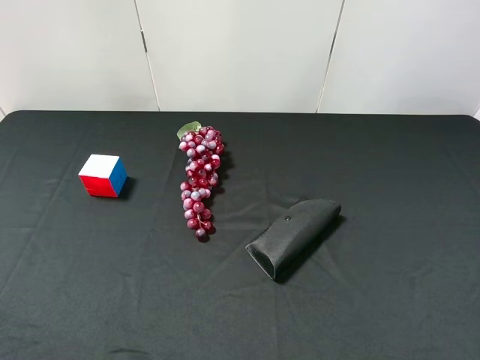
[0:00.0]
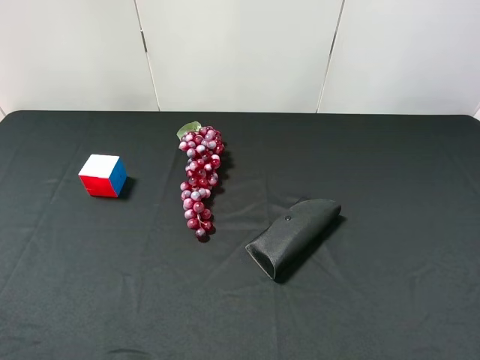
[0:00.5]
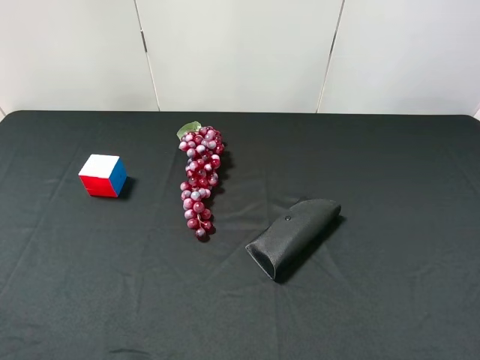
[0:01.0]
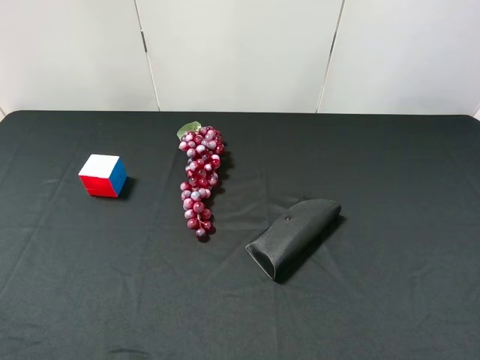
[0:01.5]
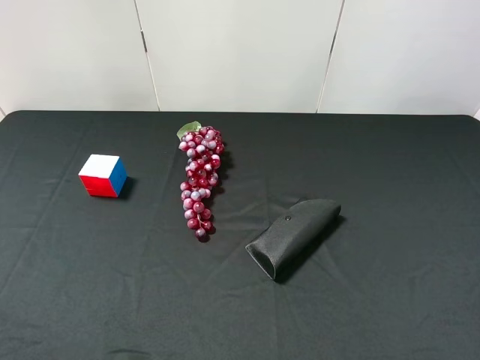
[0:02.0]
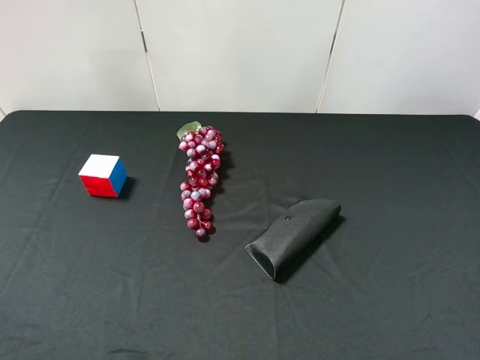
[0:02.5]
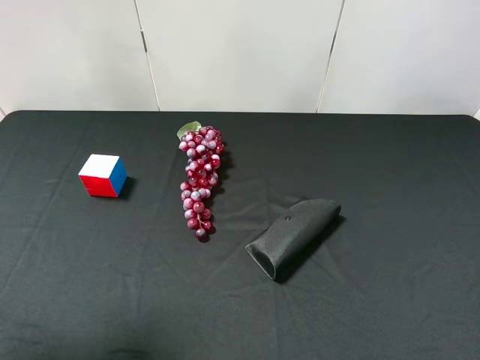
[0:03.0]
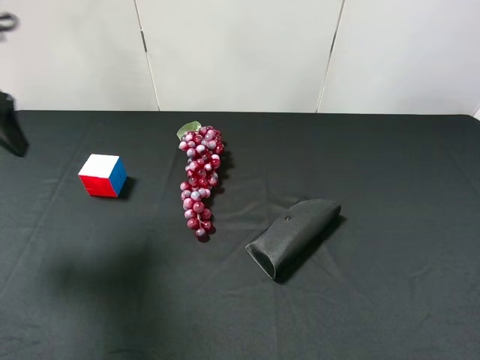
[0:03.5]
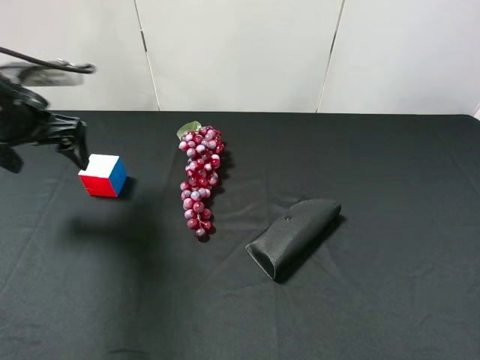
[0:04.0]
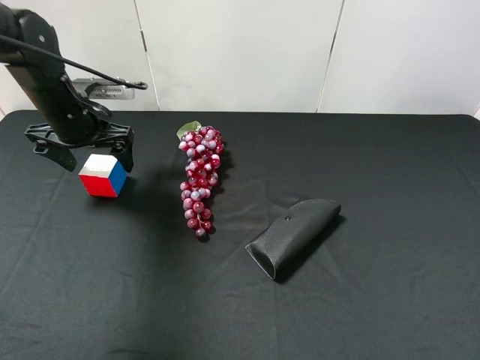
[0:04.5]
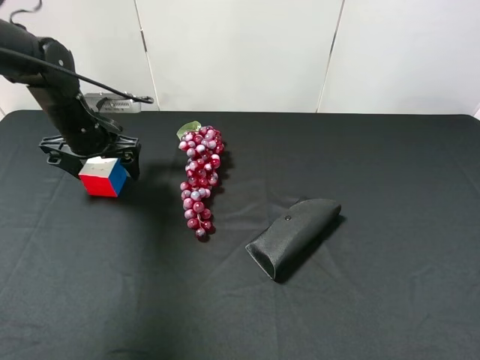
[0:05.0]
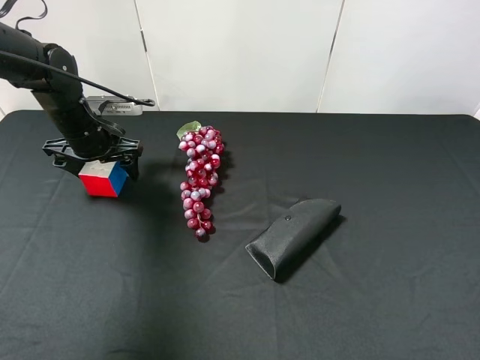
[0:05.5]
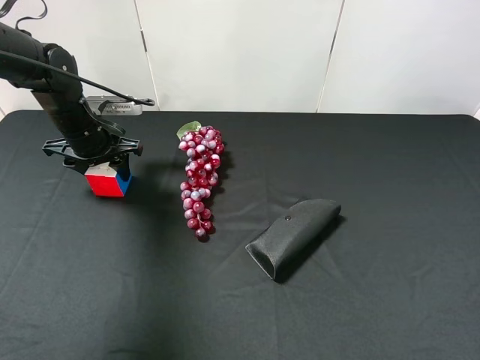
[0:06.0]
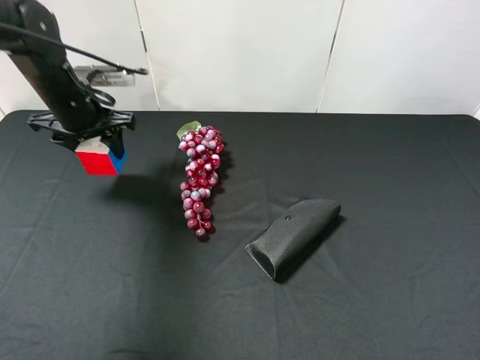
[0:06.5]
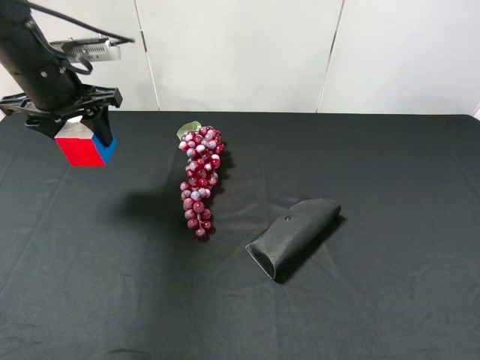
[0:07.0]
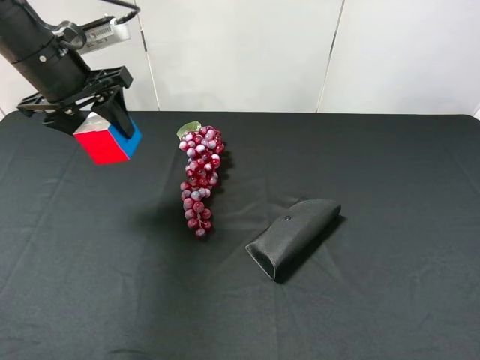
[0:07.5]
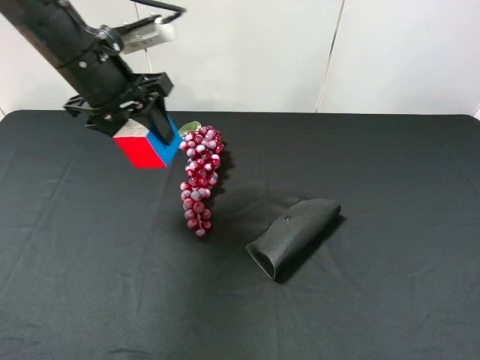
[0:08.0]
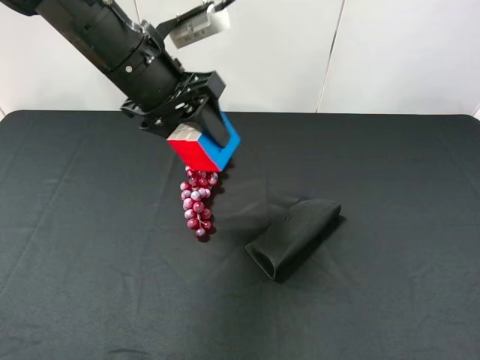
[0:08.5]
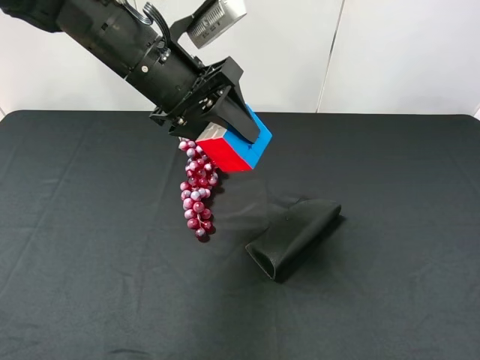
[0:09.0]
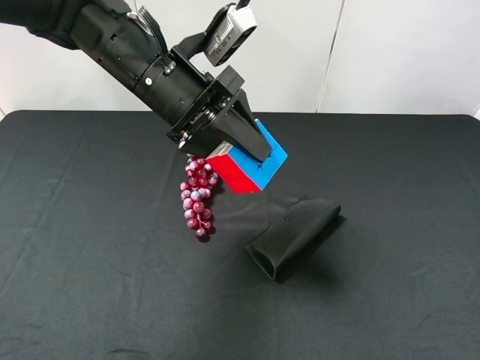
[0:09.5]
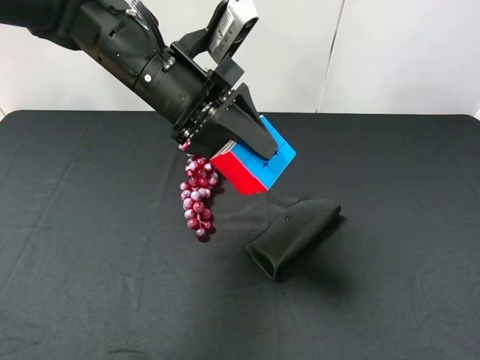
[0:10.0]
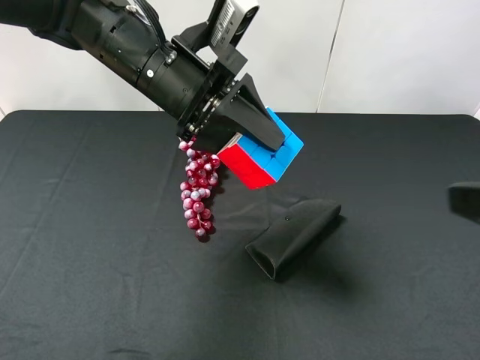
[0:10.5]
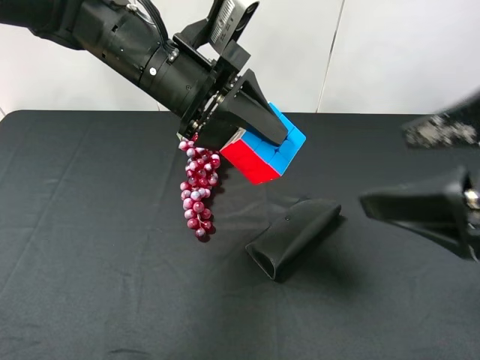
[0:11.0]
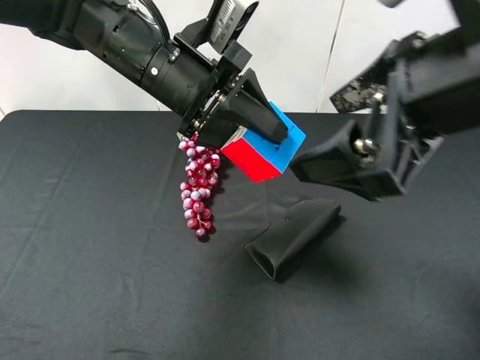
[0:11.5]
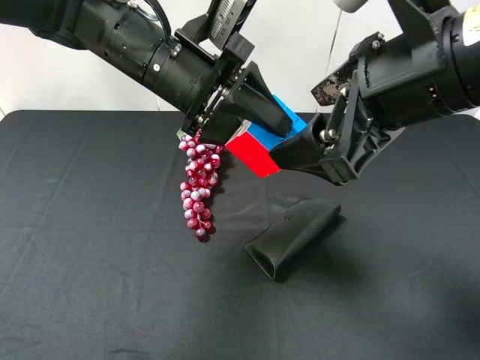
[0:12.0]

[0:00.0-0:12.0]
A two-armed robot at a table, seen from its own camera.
Task of the whole recording: use the left gripper to pick up the item and transfer it from the left gripper to the right gripper.
0:00.0 to 0:02.0: Neither gripper changes place.
0:02.0 to 0:04.0: The left gripper goes roughly 30 cm forward.
0:04.0 to 0:06.0: The left gripper shifts about 10 cm downward and forward, and closes up.
0:06.0 to 0:08.0: The left gripper shifts roughly 15 cm upward, to the right and backward.
0:08.0 to 0:10.0: The left gripper is displaced to the right by roughly 10 cm.
0:10.0 to 0:12.0: The right gripper moves forward and to the left, approximately 20 cm.

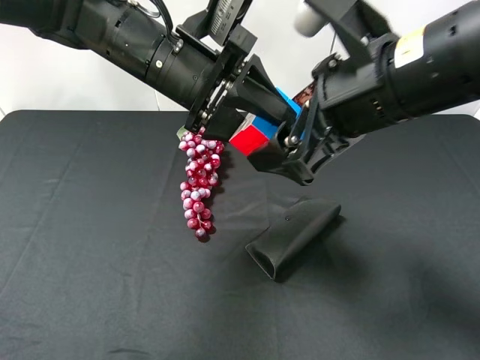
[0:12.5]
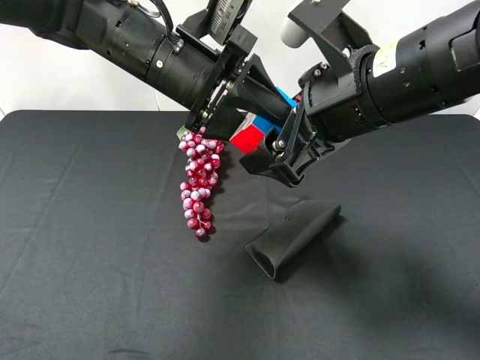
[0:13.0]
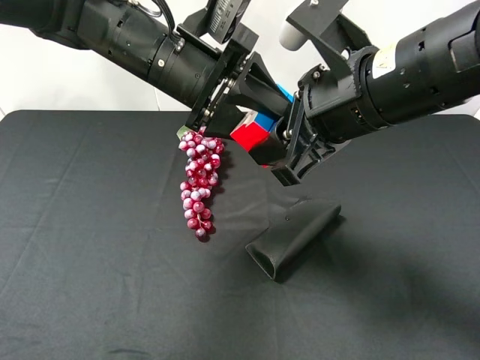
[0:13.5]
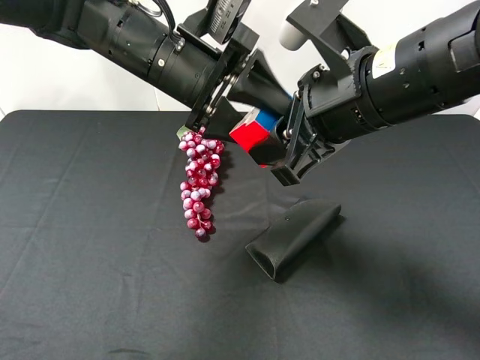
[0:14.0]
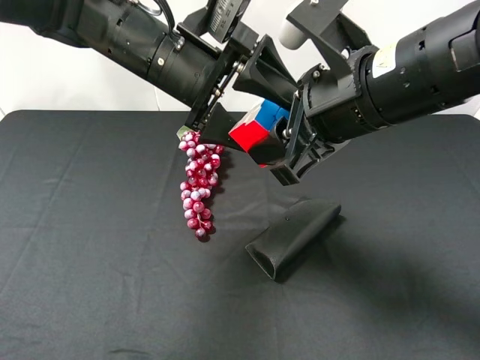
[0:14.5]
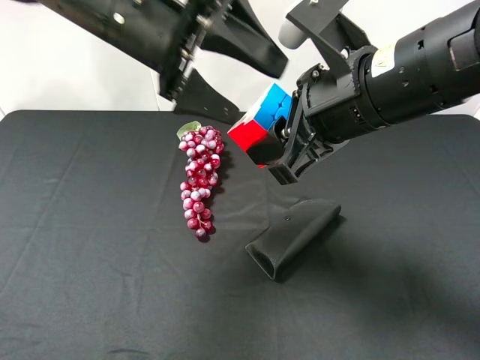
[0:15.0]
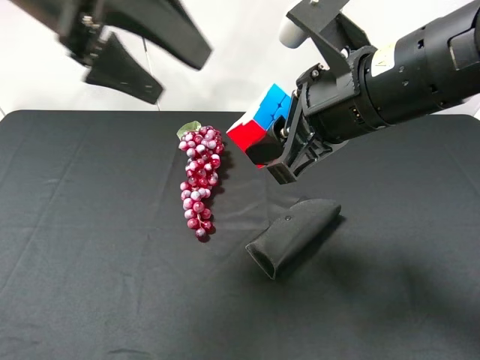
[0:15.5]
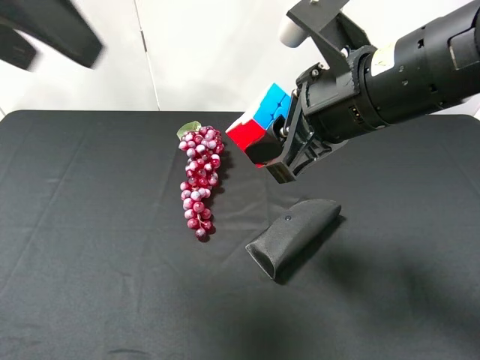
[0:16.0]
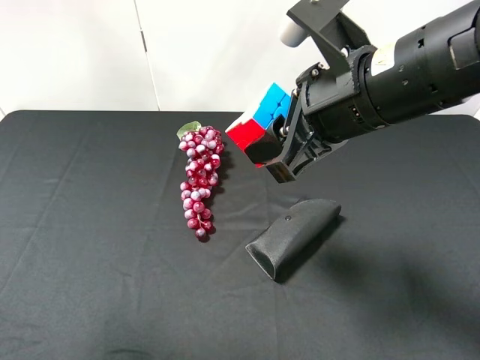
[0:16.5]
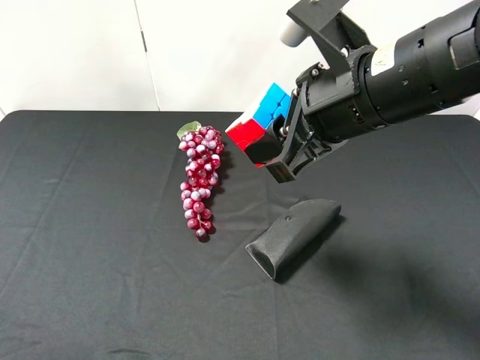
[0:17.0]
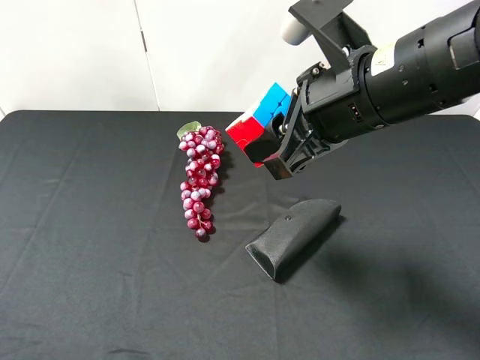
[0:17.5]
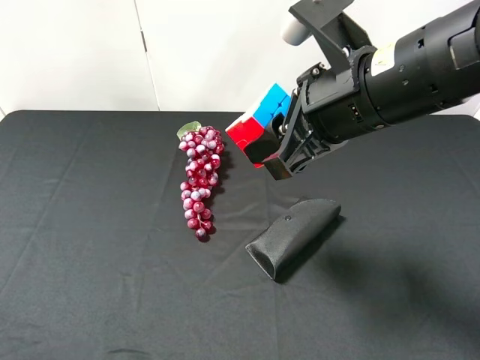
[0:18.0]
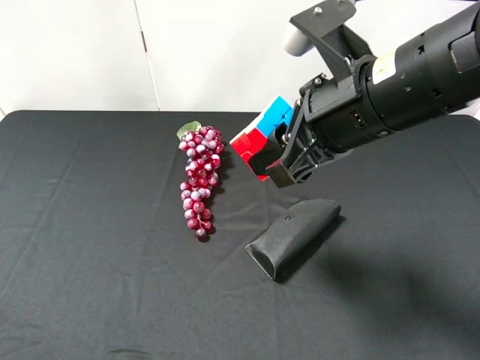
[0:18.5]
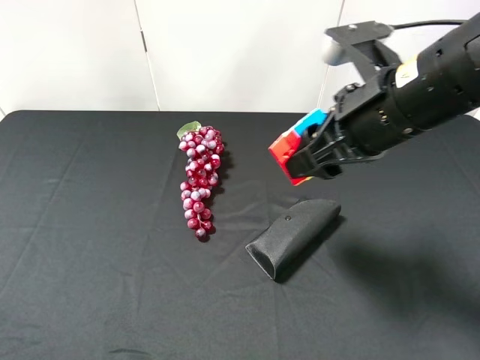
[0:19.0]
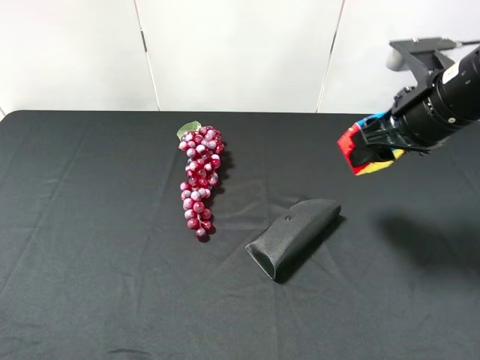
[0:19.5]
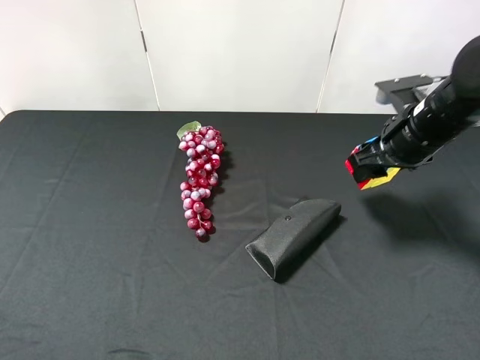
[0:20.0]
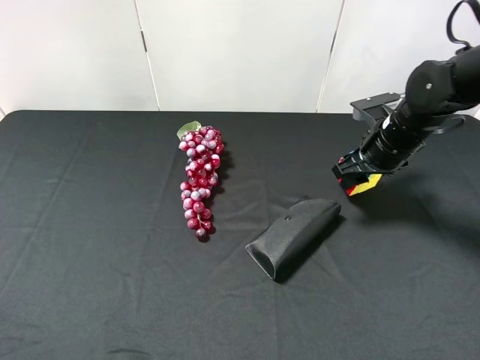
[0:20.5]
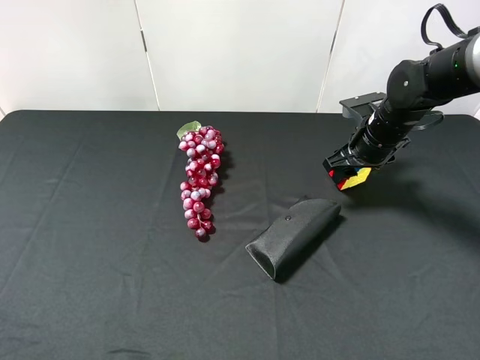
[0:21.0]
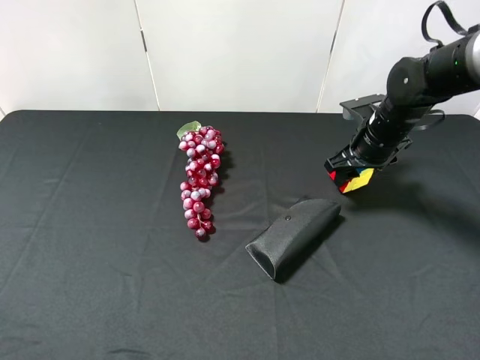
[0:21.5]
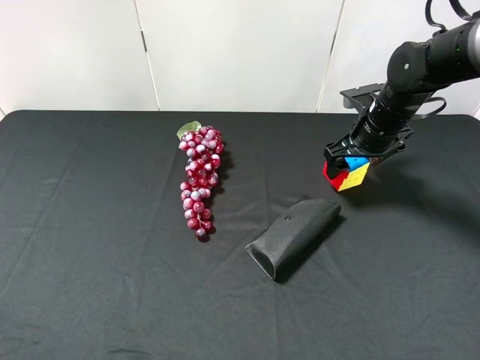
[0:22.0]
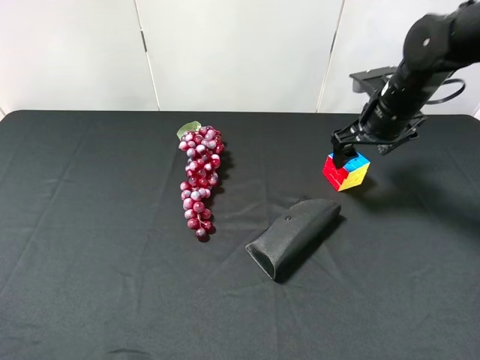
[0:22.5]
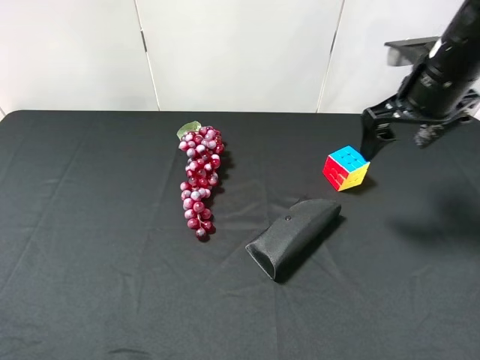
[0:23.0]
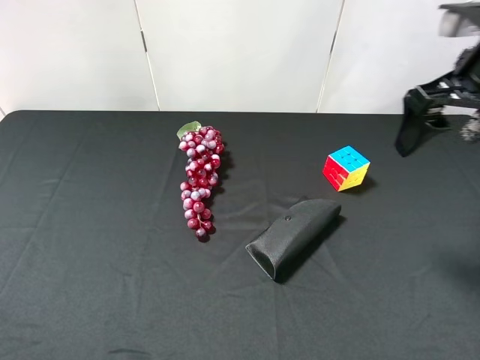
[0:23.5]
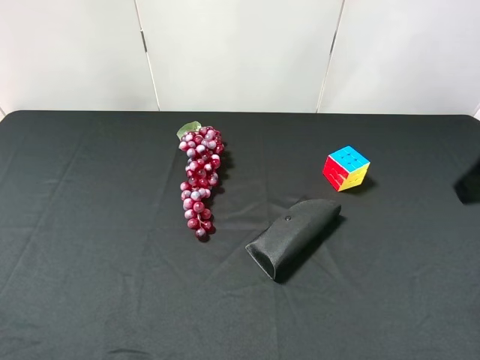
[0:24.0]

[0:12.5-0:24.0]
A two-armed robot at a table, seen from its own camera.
Task of the whole recording: use the left gripper to pick up the item and transfer it from the left gripper to the right gripper.
0:12.5 to 0:14.5: The left gripper opens its fingers. The right gripper closes.
0:14.5 to 0:16.5: The left gripper goes some 30 cm to the left, backward and upward.
0:16.5 to 0:18.5: The left gripper heads downward and backward, covering some 15 cm.
0:18.5 to 0:20.0: The right gripper is displaced to the right, forward and downward by some 20 cm.
0:20.0 to 0:22.0: The right gripper shifts some 10 cm forward, and opens its fingers.
0:22.0 to 0:24.0: The right gripper shifts roughly 30 cm backward and upward.
